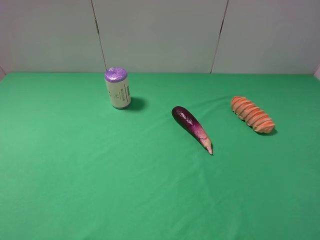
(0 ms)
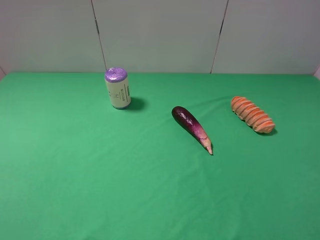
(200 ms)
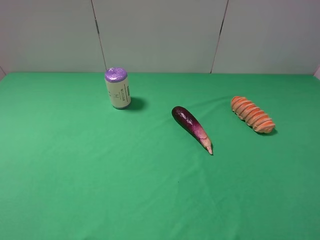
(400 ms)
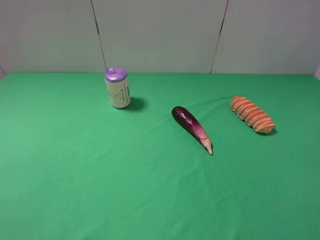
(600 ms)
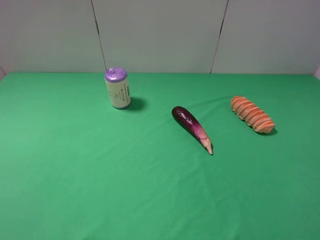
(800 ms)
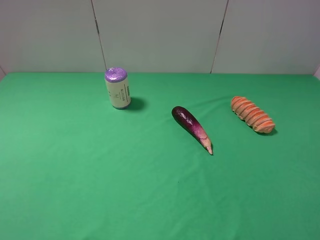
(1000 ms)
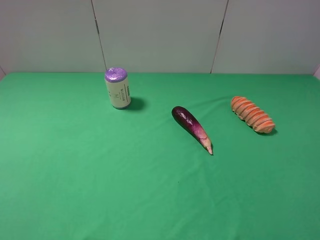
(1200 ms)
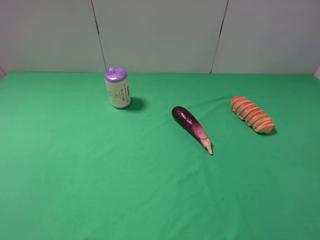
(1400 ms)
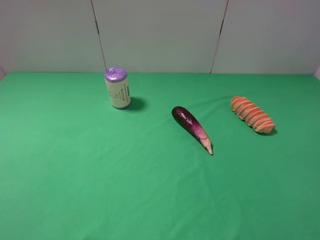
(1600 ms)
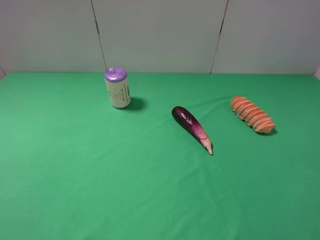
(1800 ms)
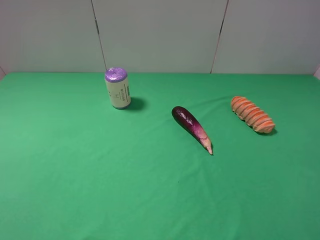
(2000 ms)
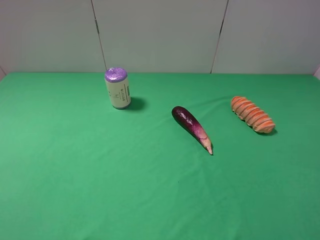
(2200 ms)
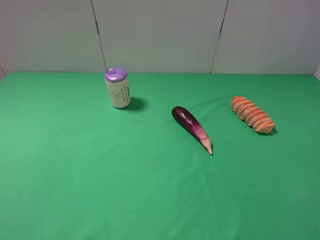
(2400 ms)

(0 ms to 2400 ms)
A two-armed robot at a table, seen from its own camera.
Task of the whole recording: use the left gripper to pick up the item and transfer it from the left gripper to the right gripper.
0 ms - 1200 ms: Neither gripper changes place.
1200 ms - 2400 ms: Both grippers stay put.
